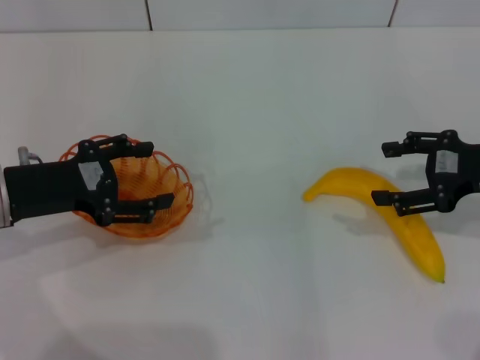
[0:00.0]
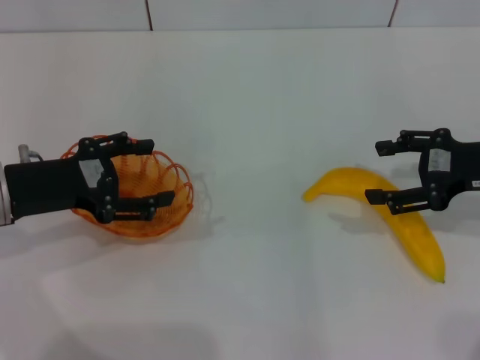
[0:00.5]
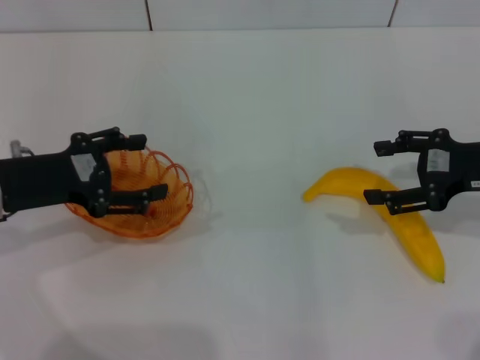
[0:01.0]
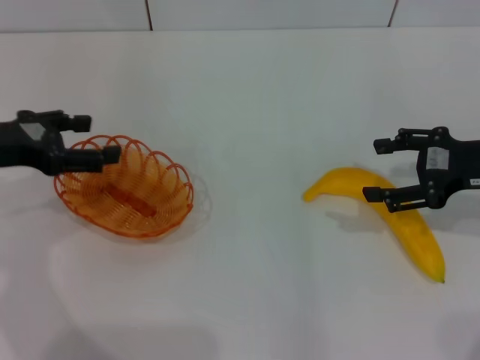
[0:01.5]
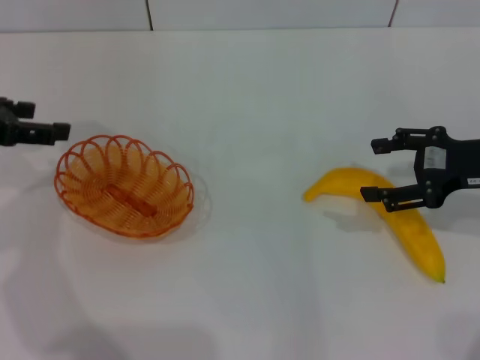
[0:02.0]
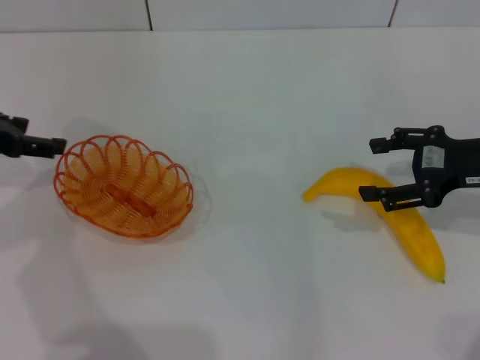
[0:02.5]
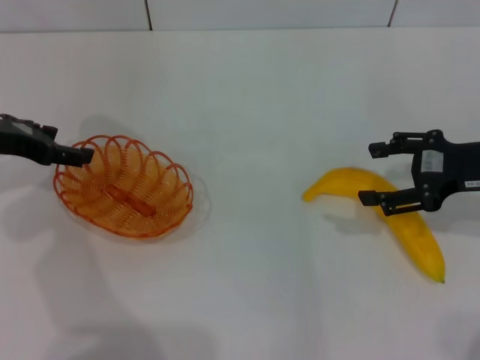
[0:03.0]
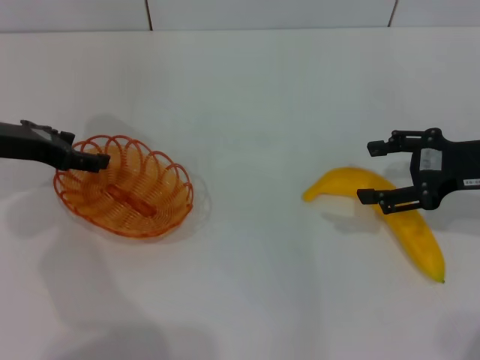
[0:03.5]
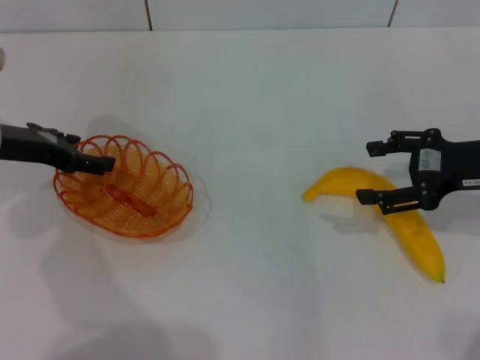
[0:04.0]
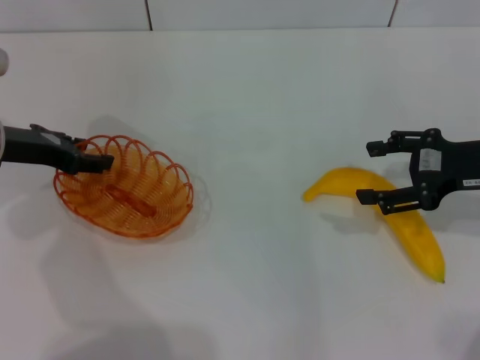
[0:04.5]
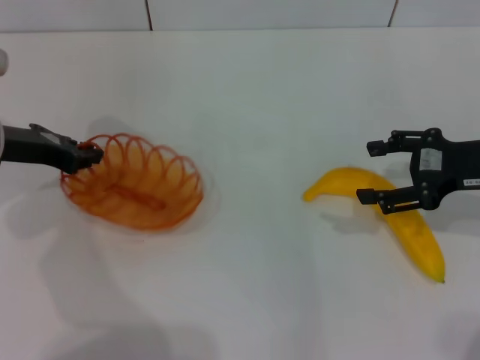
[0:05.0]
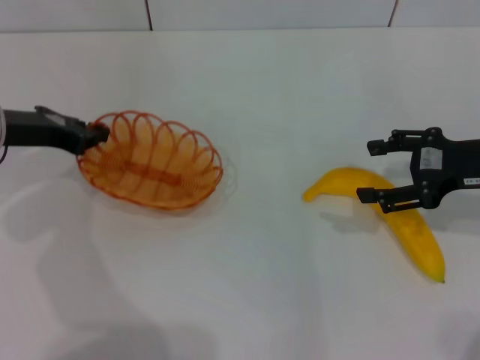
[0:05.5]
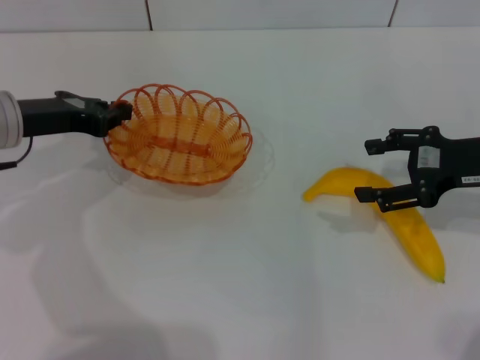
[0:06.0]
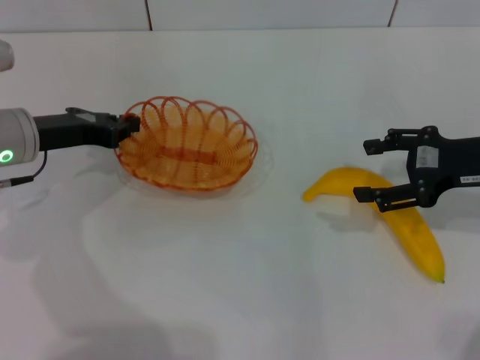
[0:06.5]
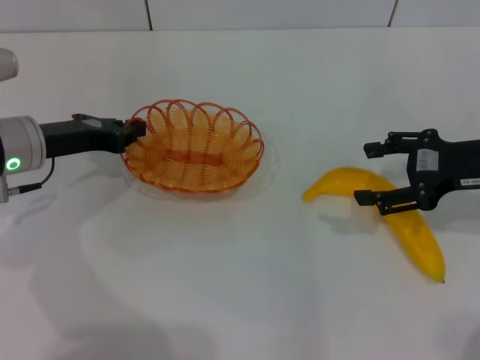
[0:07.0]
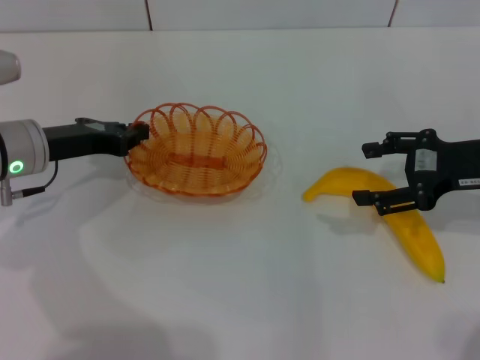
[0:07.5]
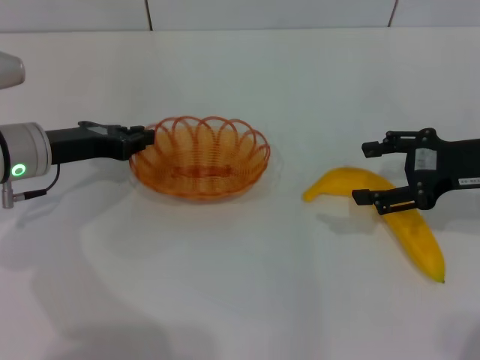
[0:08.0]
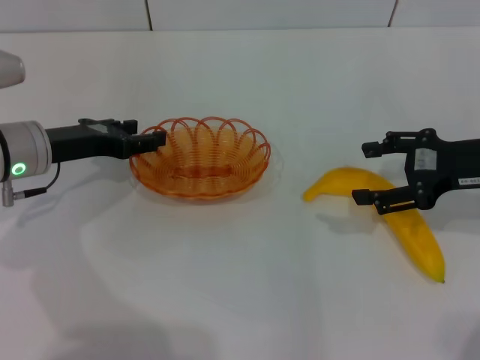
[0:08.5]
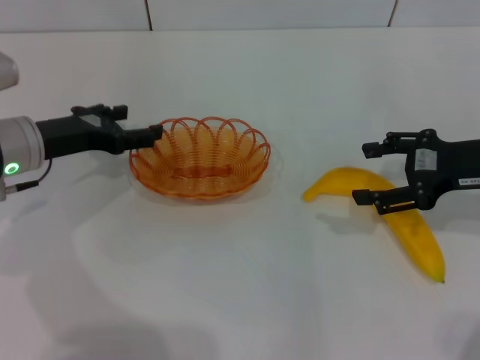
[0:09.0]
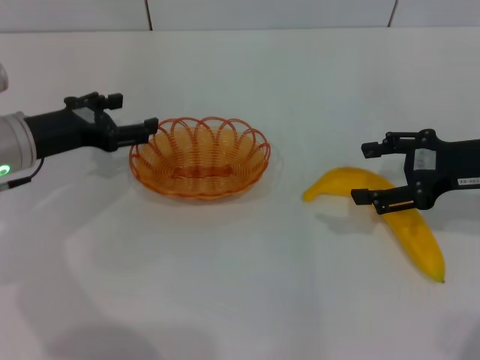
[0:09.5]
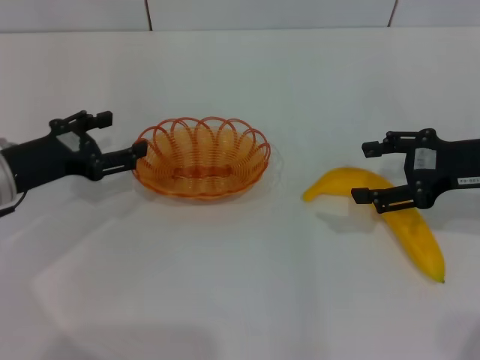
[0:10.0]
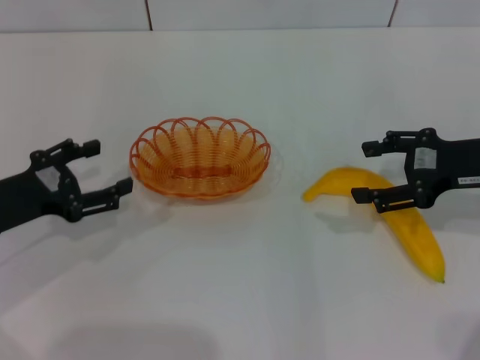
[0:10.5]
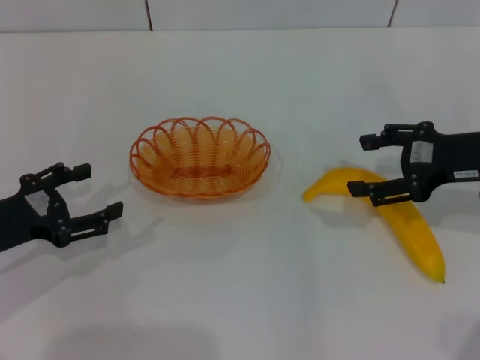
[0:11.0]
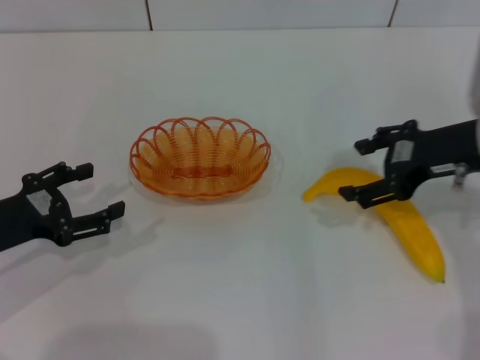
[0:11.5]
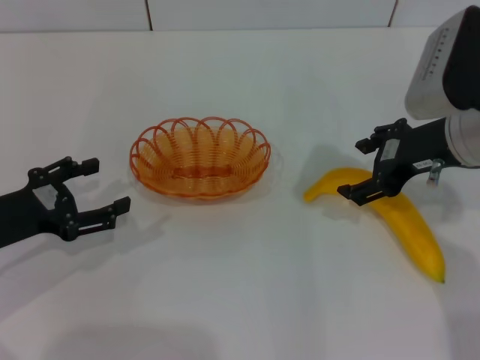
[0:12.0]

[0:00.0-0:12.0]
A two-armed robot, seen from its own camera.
Step, 0:00.0 to 0:05.5: Pick up the basket with the left gripper.
Step, 0:06.0 to 0:09.0: Place the basket in the center of view with the left gripper.
0:00.0 to 0:02.0: The left gripper heads upward and to the left, covering approximately 10 cm.
0:02.0 to 0:04.0: The left gripper is displaced downward by some 5 cm.
0:04.0 to 0:06.0: The left gripper closes its fingers.
0:06.0 to 0:08.0: The grippers make only small movements.
0:08.0 to 0:10.0: The left gripper changes place by approximately 5 cm, and opens up.
0:10.0 to 0:12.0: The right gripper moves to the left, about 10 cm. Meanwhile the left gripper moves backward, about 5 cm.

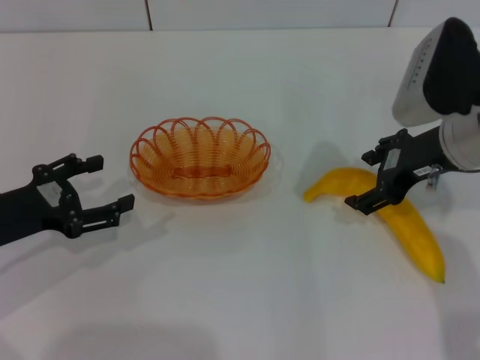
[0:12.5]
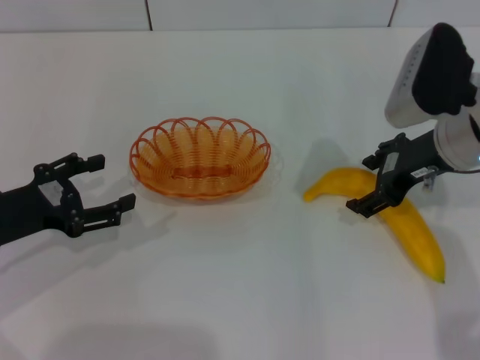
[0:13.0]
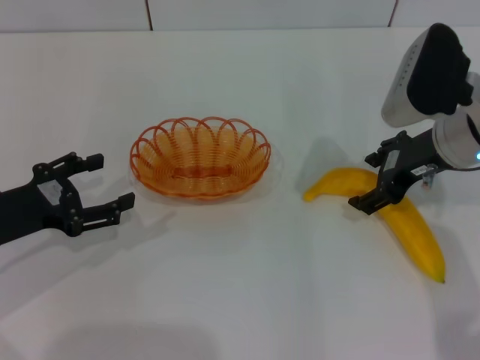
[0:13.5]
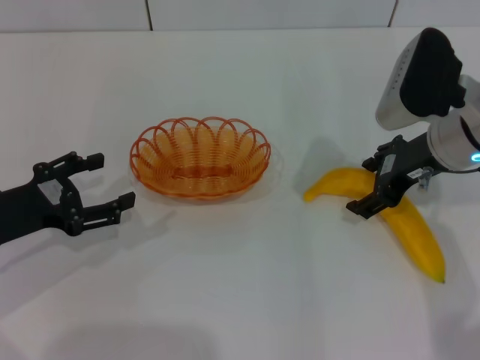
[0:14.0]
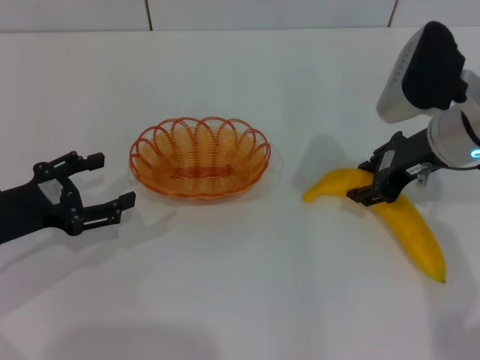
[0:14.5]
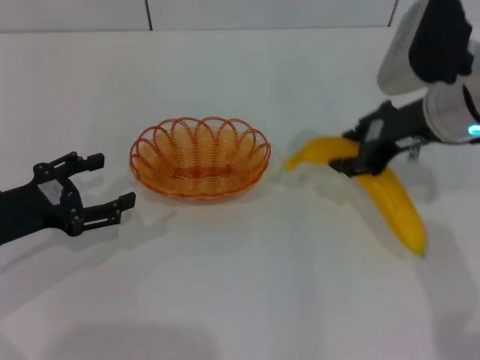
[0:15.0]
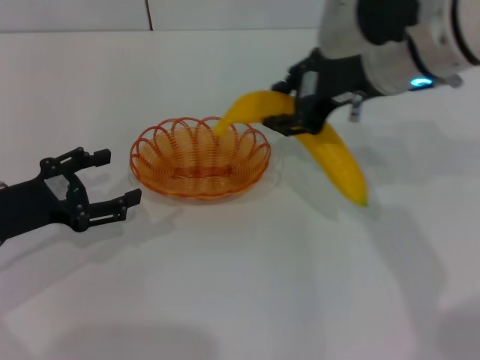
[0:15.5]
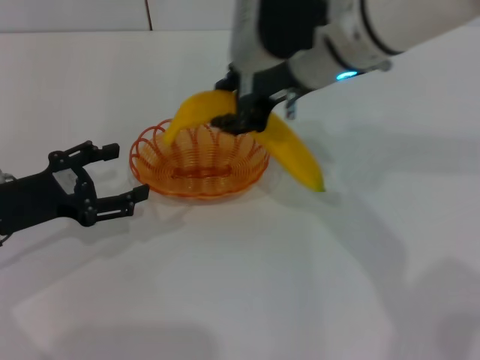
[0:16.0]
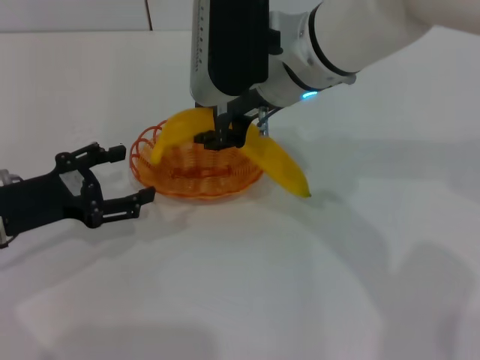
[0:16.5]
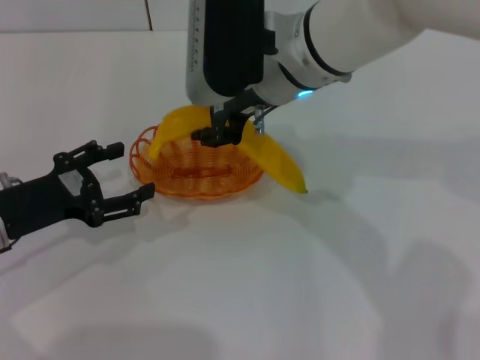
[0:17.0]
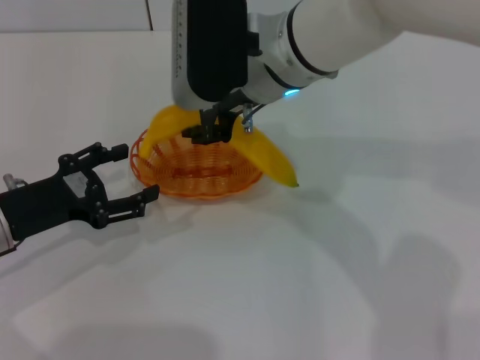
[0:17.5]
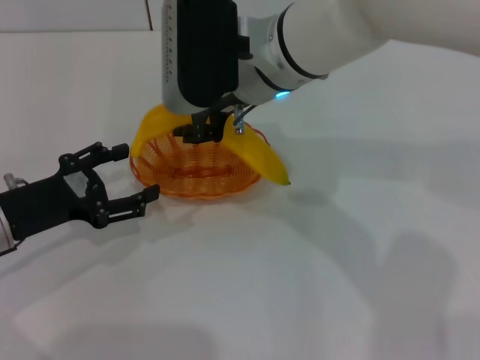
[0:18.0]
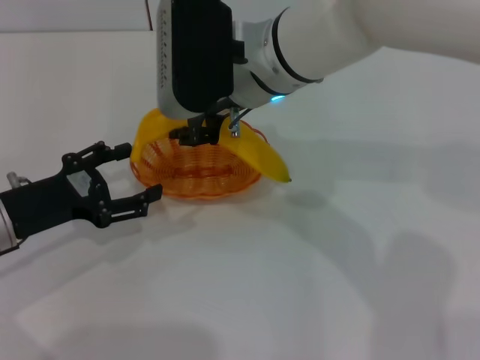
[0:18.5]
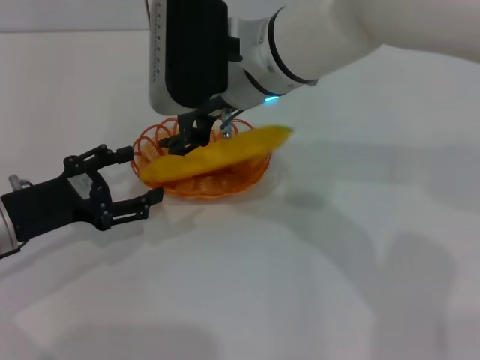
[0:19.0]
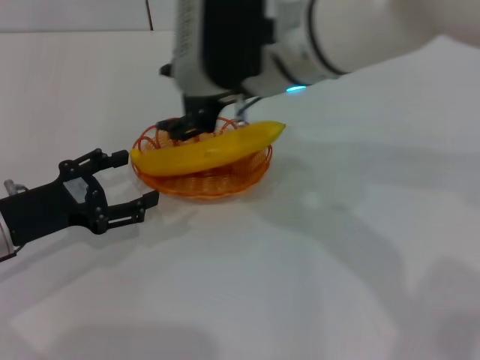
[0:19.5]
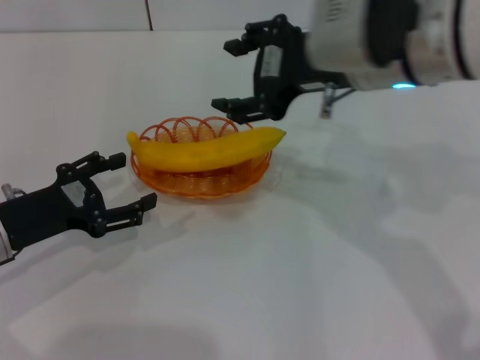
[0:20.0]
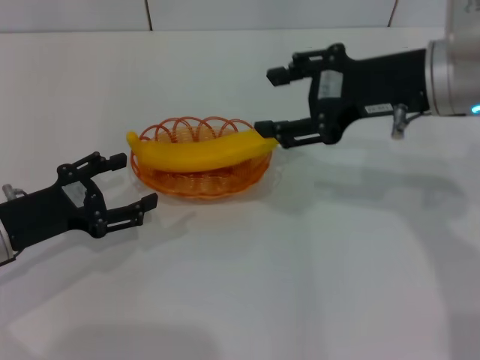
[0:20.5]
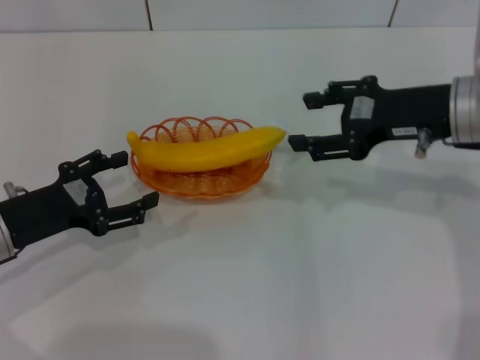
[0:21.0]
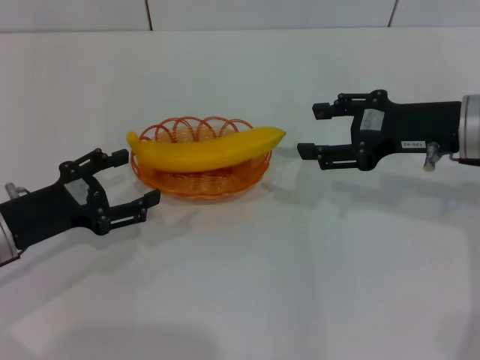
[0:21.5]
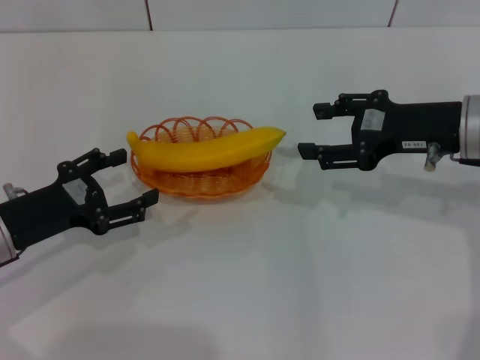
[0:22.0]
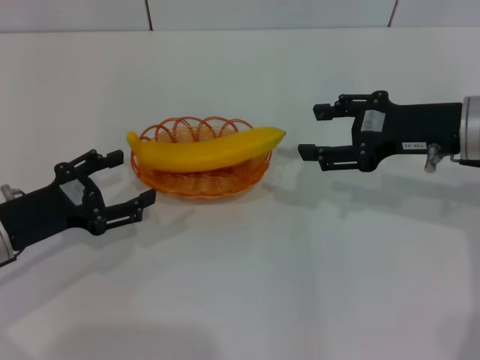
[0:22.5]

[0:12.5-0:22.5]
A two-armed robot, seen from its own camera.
Step, 0:12.5 to 0:15.0: Pick up the banana with the right gripper.
Step, 0:15.5 to 0:19.0: Place the banana into the basket with the right gripper.
0:12.5 to 0:14.5: The right gripper closes up.
0:14.5 to 0:16.5: The right gripper is displaced to the left by approximately 15 cm.
0:16.5 to 0:18.5: The grippers make only small movements.
0:18.5 to 0:20.5: The right gripper goes roughly 15 cm to the right, and opens up.
0:20.5 to 0:22.5: The right gripper heads downward and to the right, covering roughly 10 cm.

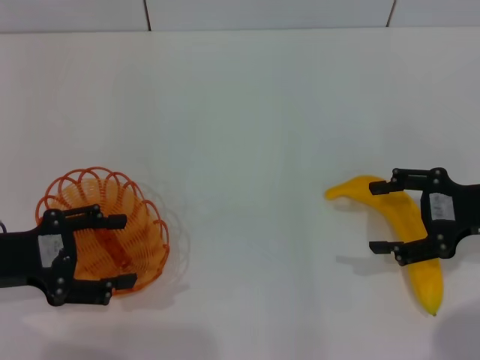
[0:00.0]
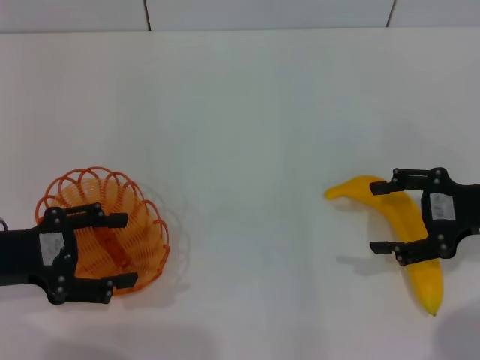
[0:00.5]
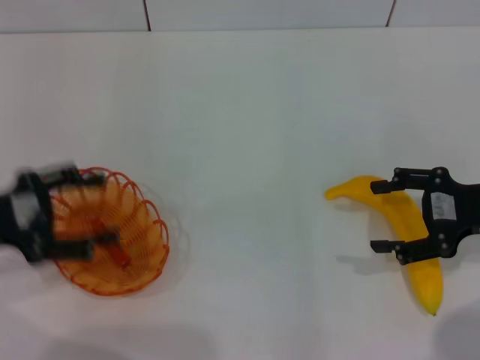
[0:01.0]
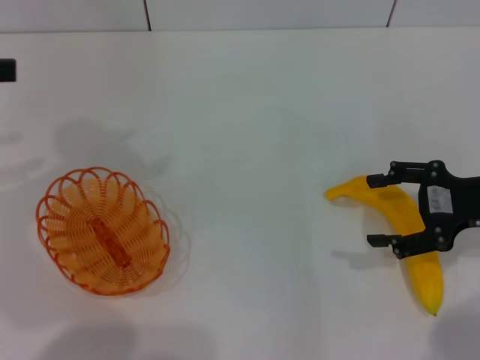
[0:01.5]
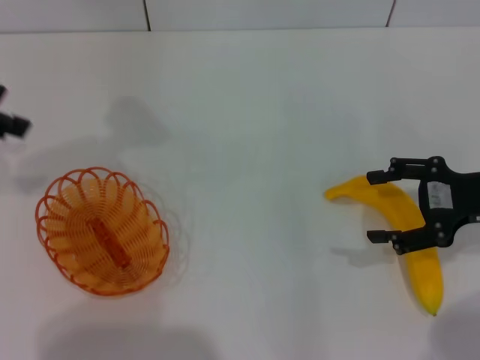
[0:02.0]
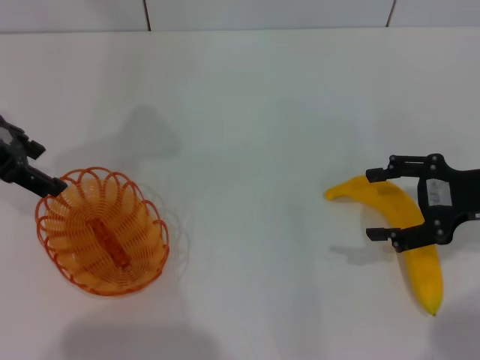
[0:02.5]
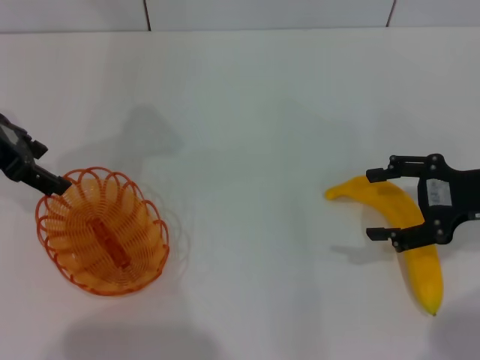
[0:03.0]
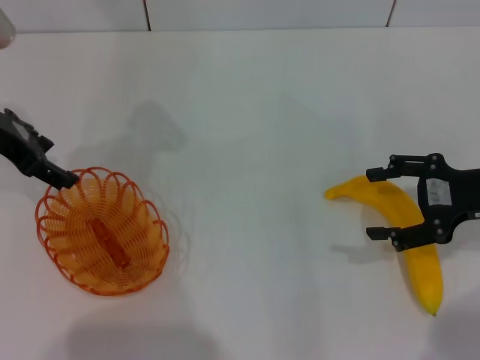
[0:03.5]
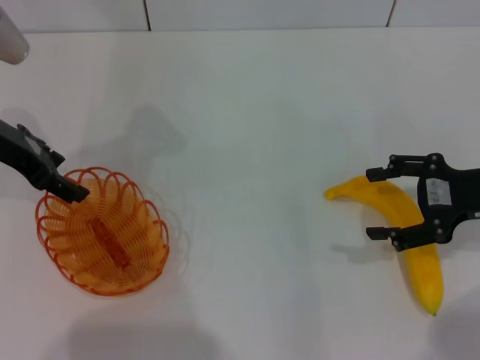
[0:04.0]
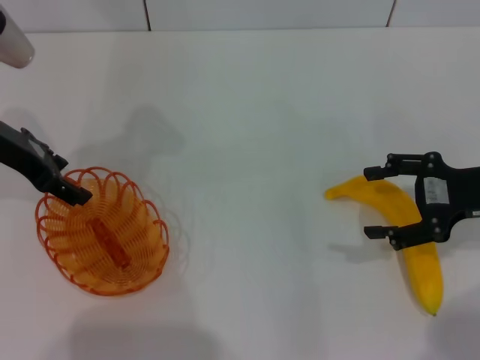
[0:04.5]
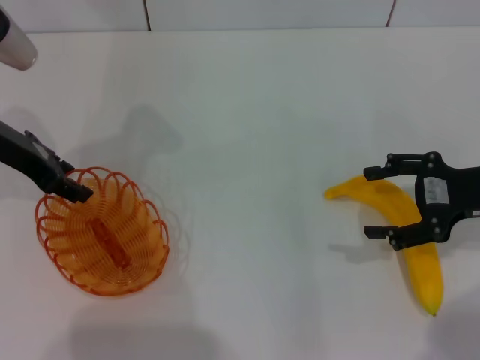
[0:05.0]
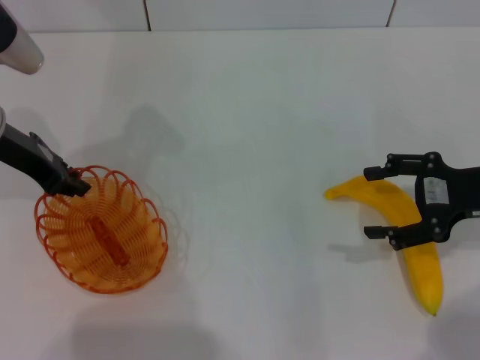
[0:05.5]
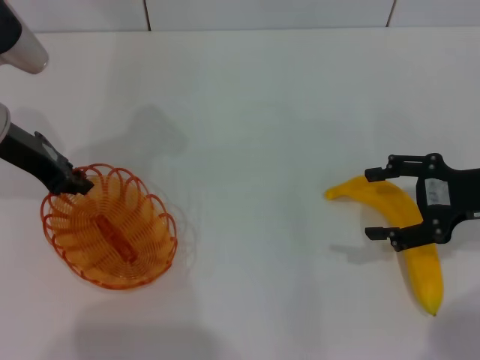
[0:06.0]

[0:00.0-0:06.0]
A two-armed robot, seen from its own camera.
0:00.0 to 0:02.0: The left gripper shifts approximately 20 cm upward and forward.
0:02.0 to 0:04.0: The left gripper moves downward and to the right, approximately 10 cm.
0:04.0 to 0:06.0: The left gripper closes.
